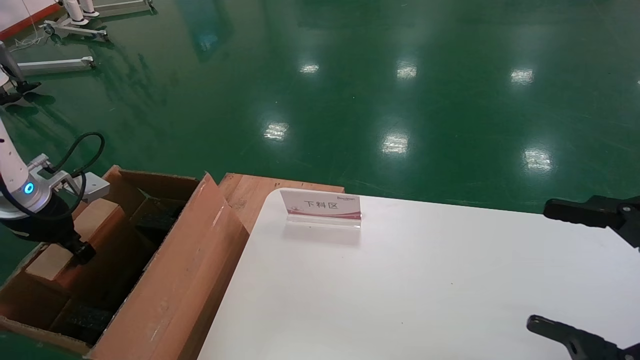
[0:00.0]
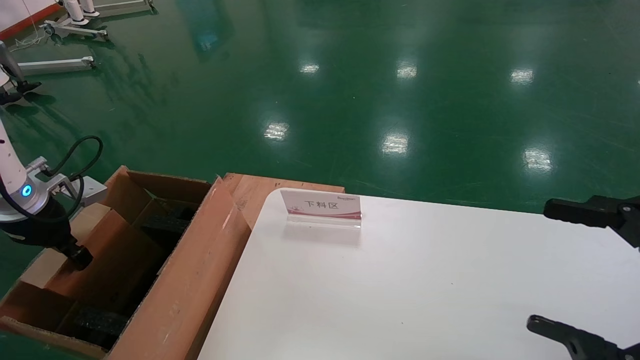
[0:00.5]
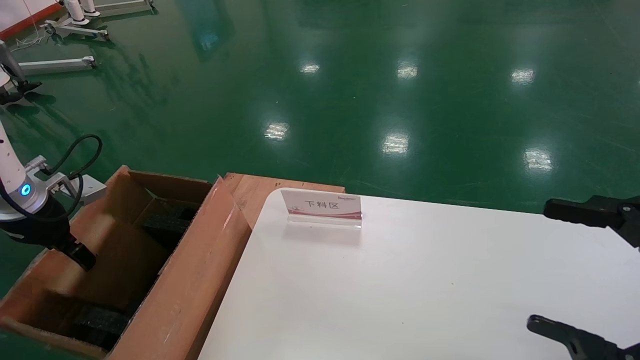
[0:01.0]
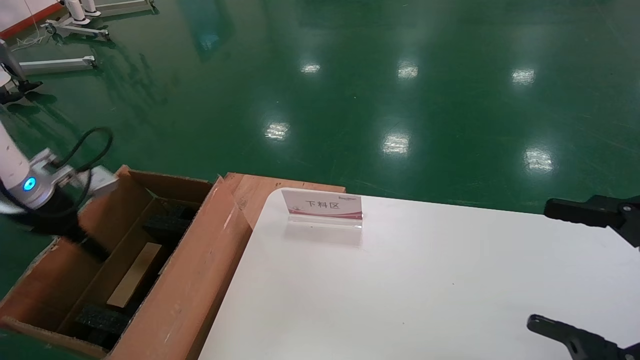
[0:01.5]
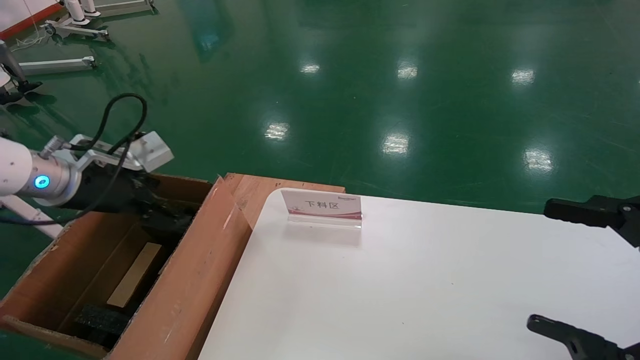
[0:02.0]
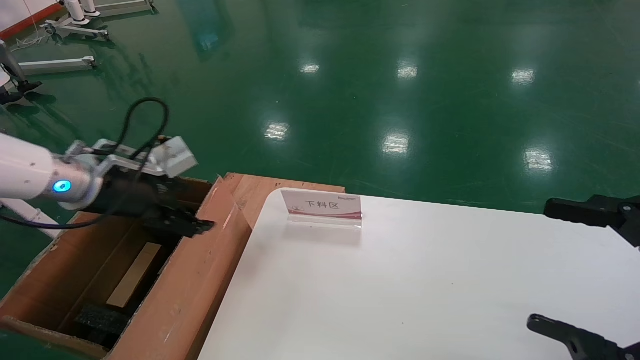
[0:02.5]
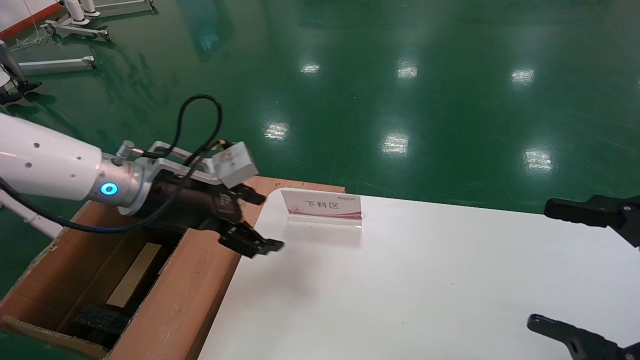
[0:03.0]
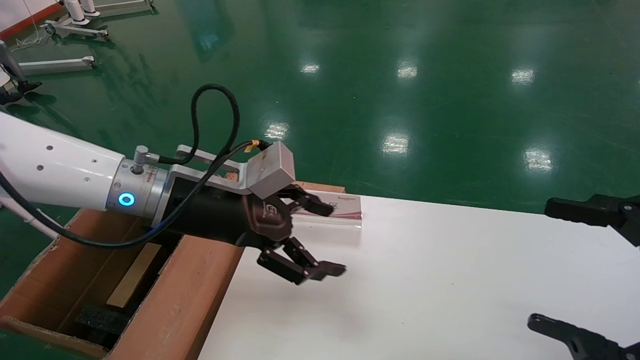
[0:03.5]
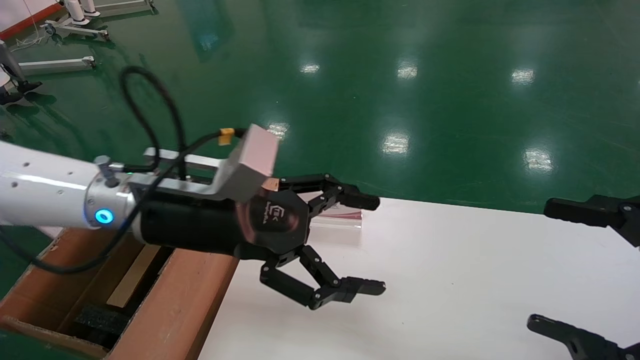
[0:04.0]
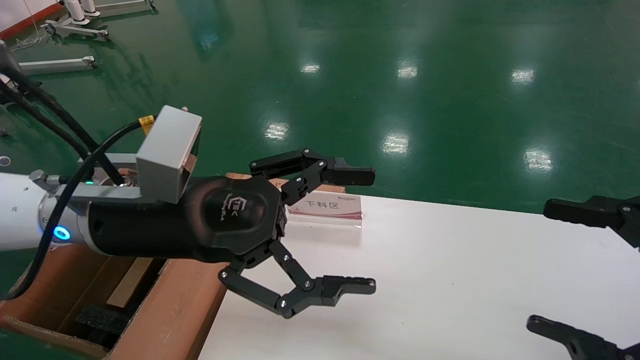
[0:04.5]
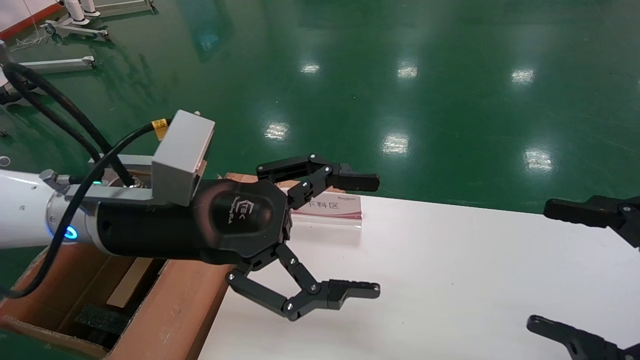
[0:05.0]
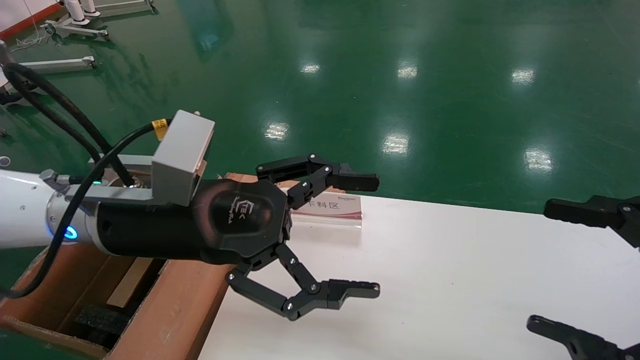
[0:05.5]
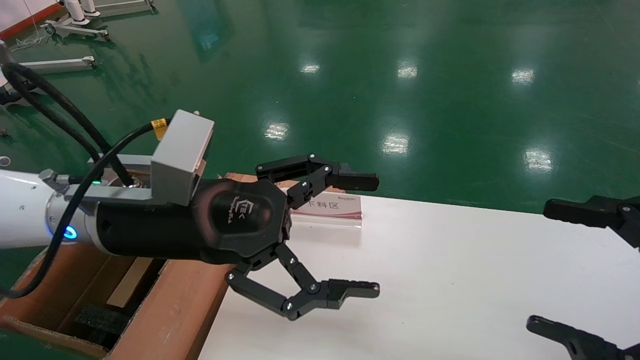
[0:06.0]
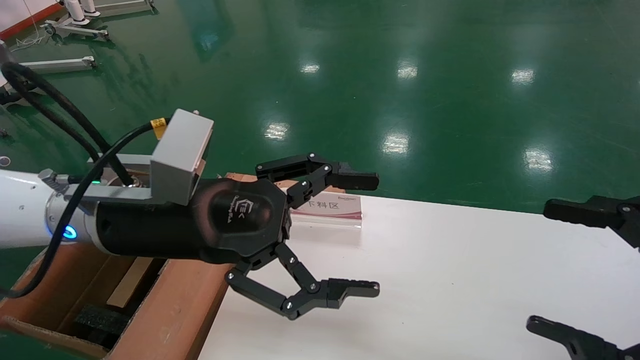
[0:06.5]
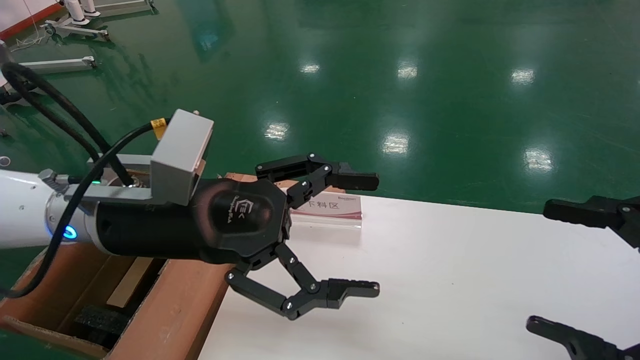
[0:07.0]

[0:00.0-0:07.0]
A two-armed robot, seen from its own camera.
Task of the whole recording: pick up the small cardboard box and load it into the large cardboard box.
Step, 0:00.0 to 0:02.0: Place the mouse and power cord box into the case.
0:00.0 to 0:02.0: The left gripper moves to the right, roughly 10 cm, and opens.
0:02.0 to 0:03.5: The left gripper shifts about 20 cm to the right.
0:03.5 to 0:05.0: The left gripper moves backward, about 5 cm.
0:05.0 to 0:07.0: Neither gripper changes place.
